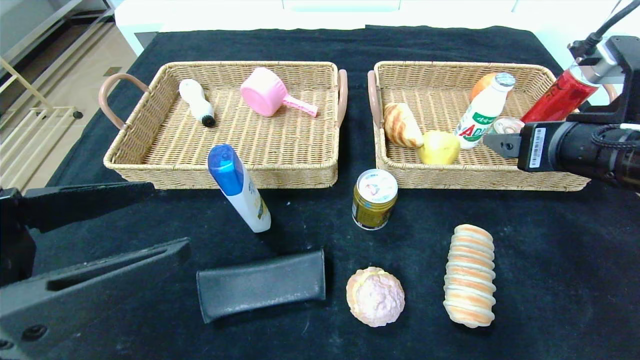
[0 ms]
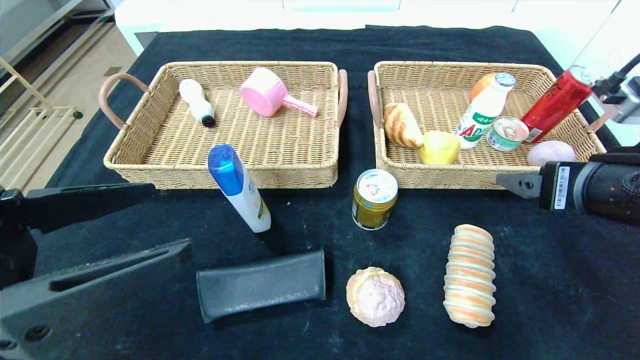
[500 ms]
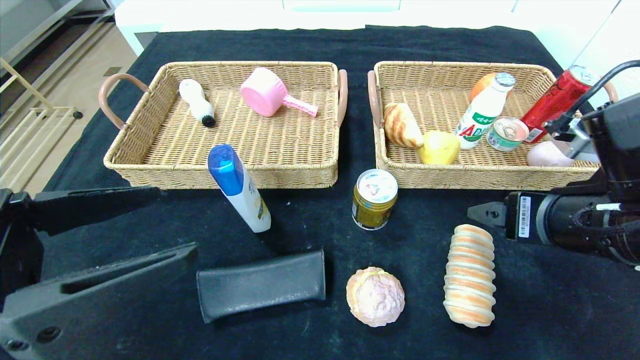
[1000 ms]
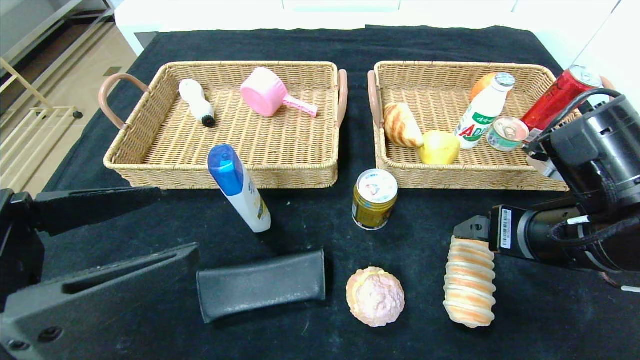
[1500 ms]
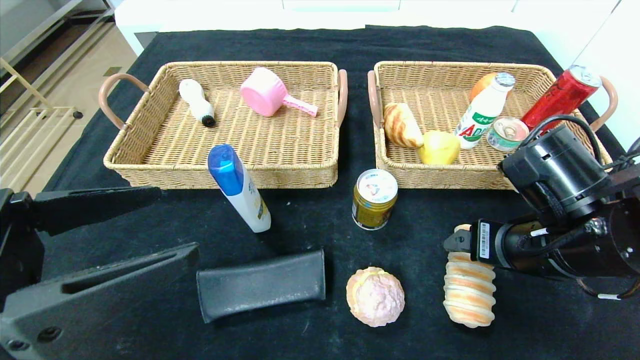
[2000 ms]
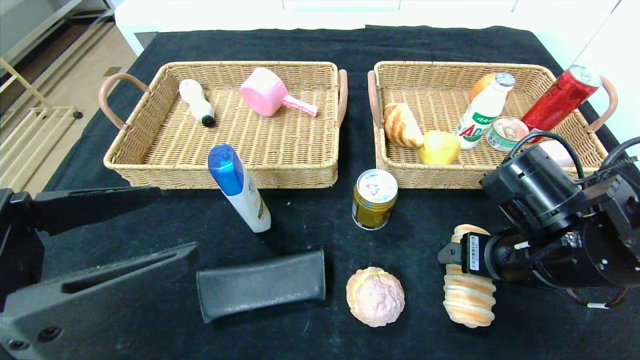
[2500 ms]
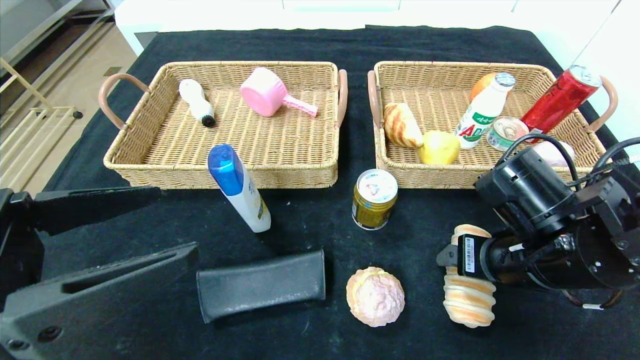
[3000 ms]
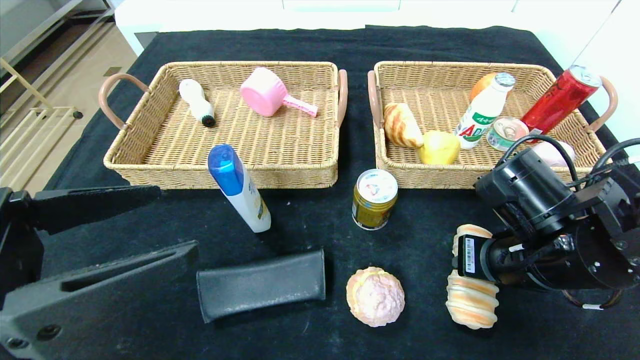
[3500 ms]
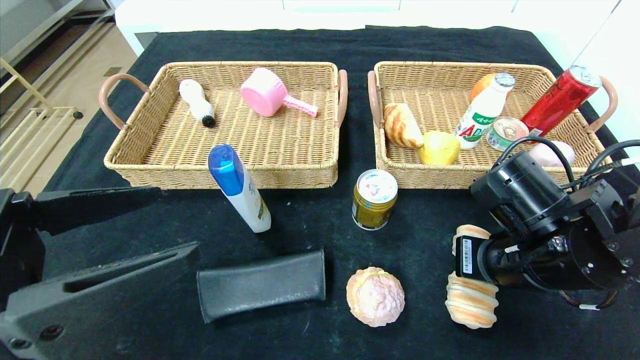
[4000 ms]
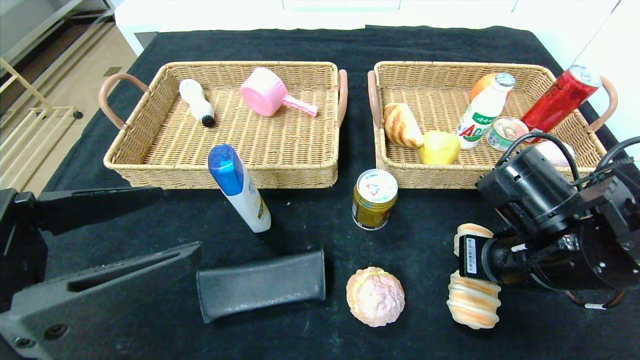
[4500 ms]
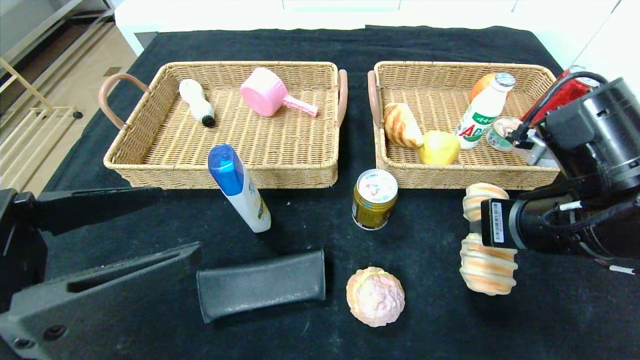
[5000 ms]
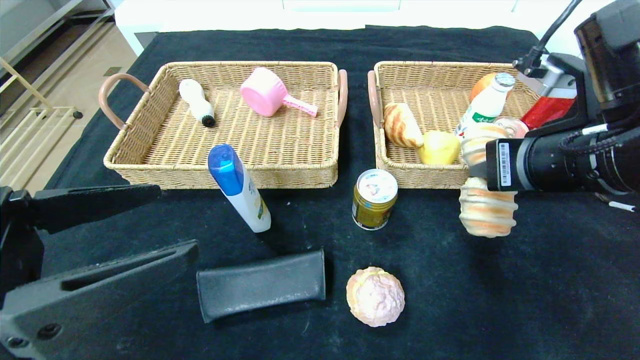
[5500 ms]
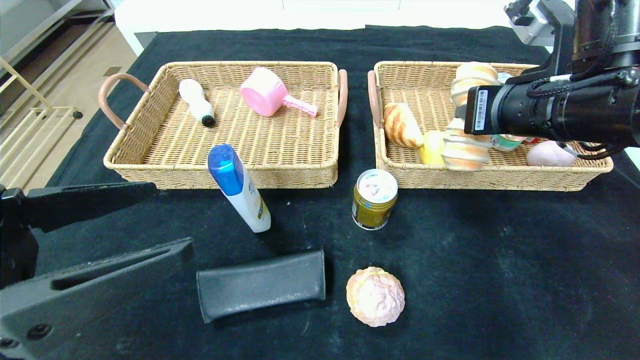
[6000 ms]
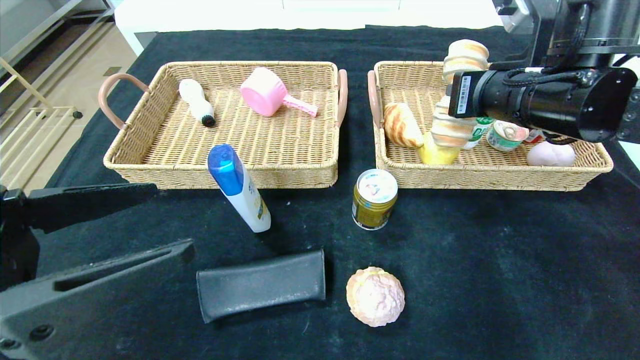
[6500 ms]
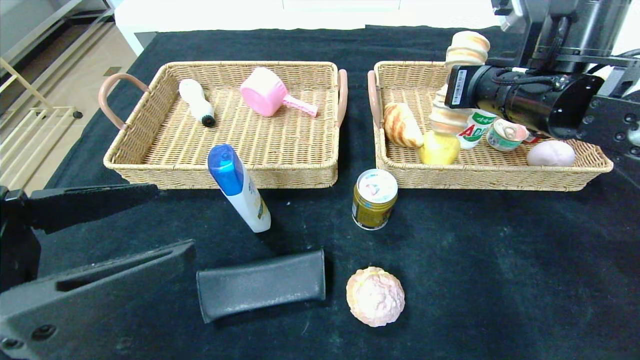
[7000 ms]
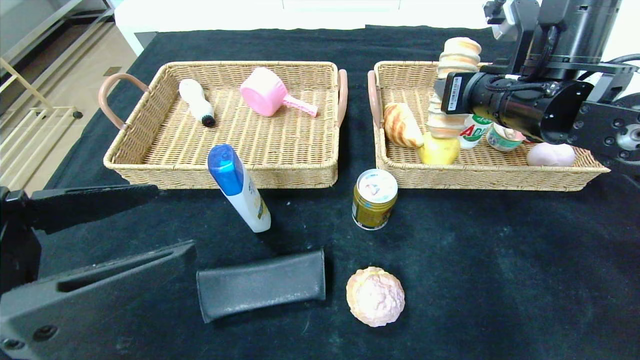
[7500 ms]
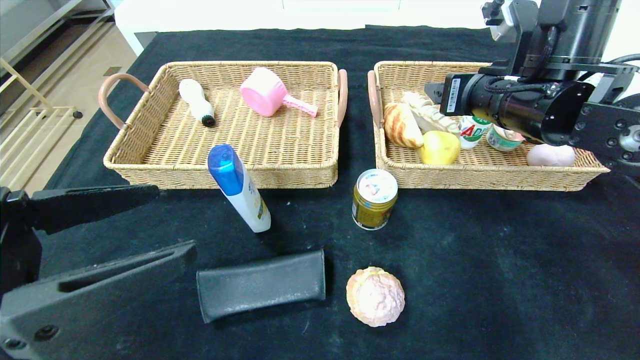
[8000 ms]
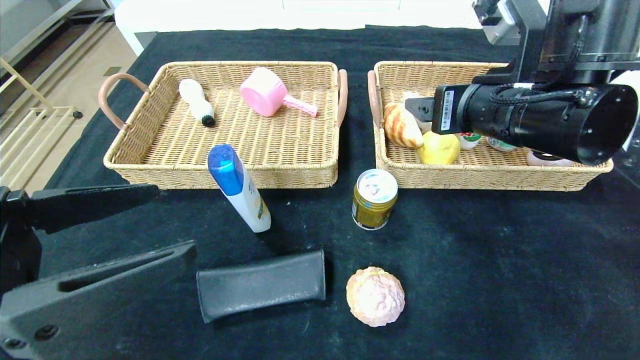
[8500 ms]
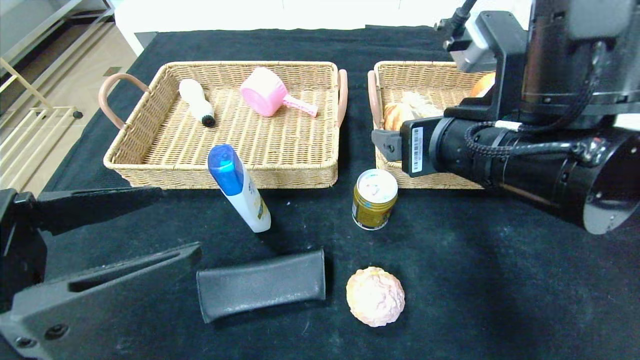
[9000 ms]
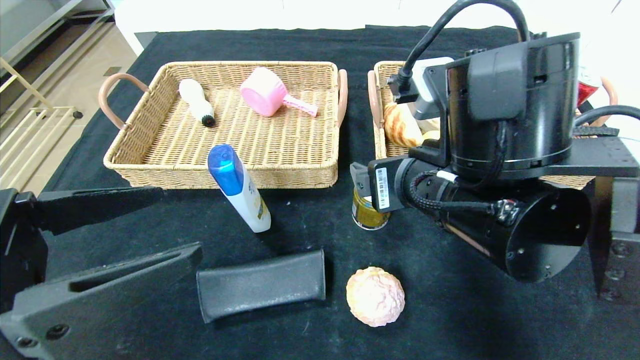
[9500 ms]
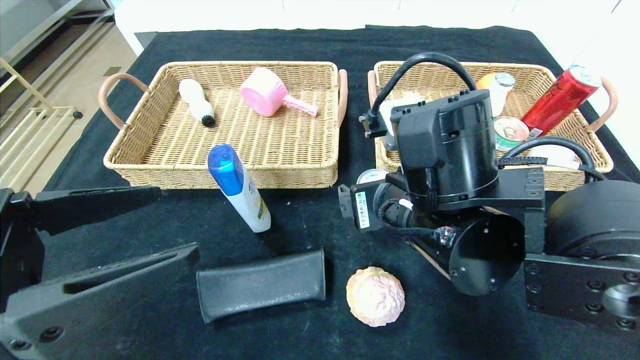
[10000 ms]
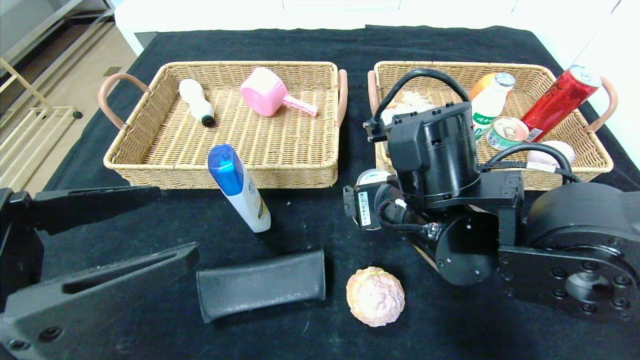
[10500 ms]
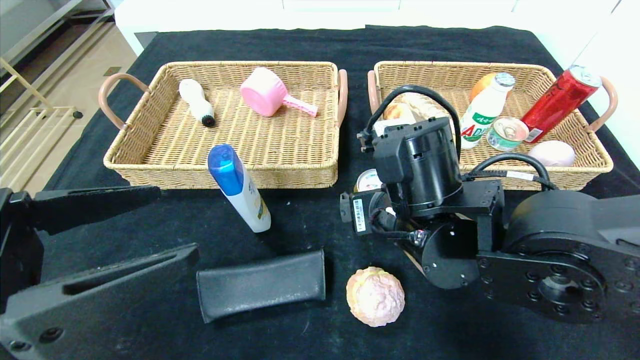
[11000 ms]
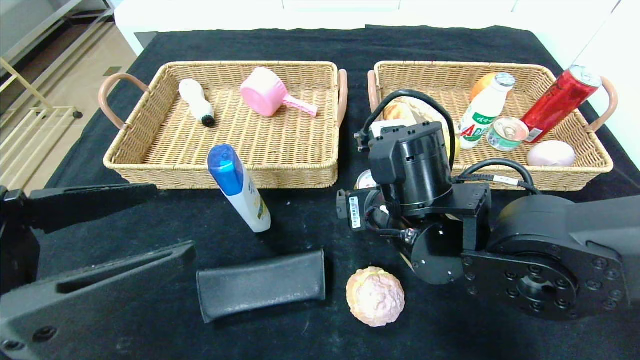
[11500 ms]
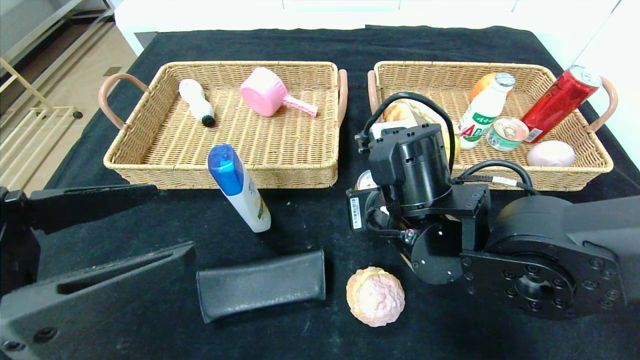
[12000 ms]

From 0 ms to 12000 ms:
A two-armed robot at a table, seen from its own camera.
Step, from 0 ms to 7500 ms: Grasp the long bread and put it in the right basket.
From 0 ms to 2000 ms: The right gripper heads downward, covering roughly 10 cm.
From 2000 ms to 4000 ms: The right gripper closes its fingers.
From 4000 ms to 6000 ms: The right gripper shifts roughly 15 cm upward.
From 6000 ms to 8000 ms: The right gripper shifts approximately 5 cm forward, and opens up.
From 8000 ms to 10000 ms: The right gripper is displaced to the left, backward and downward by some 20 cm.
From 10000 ms to 12000 ms: The right gripper closes.

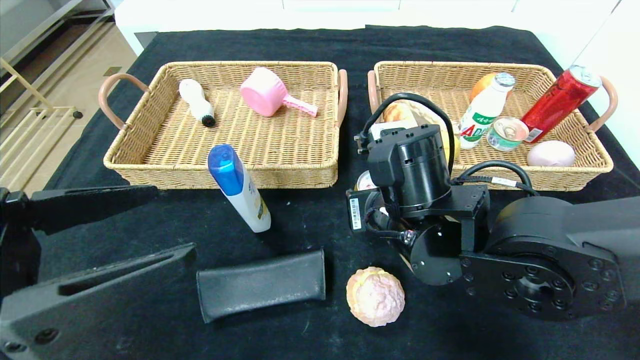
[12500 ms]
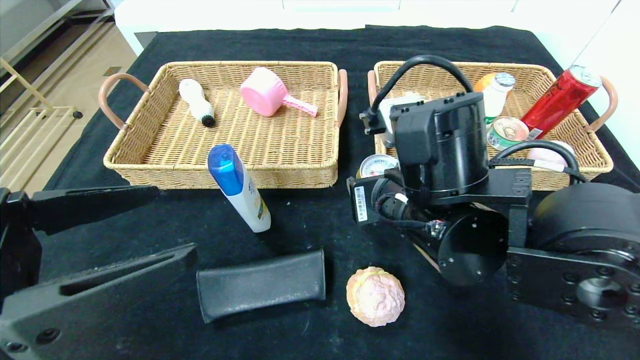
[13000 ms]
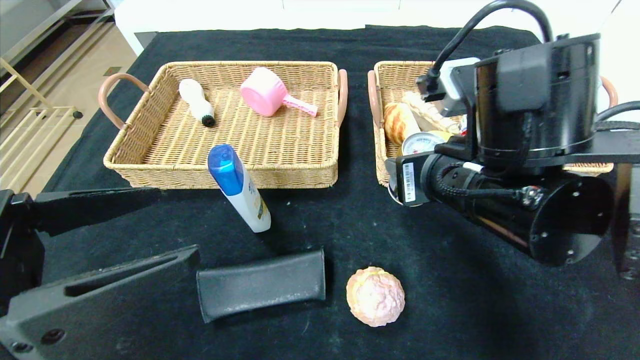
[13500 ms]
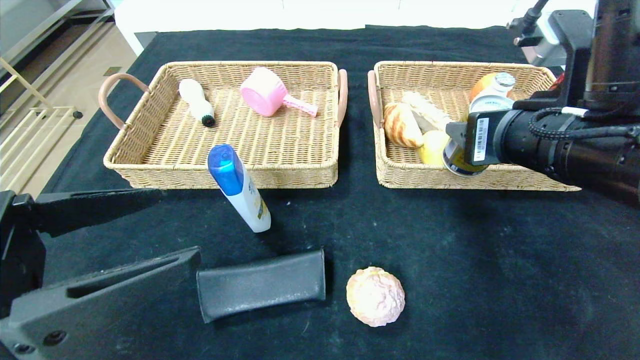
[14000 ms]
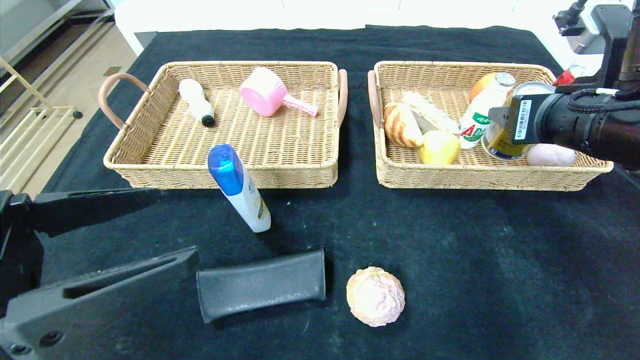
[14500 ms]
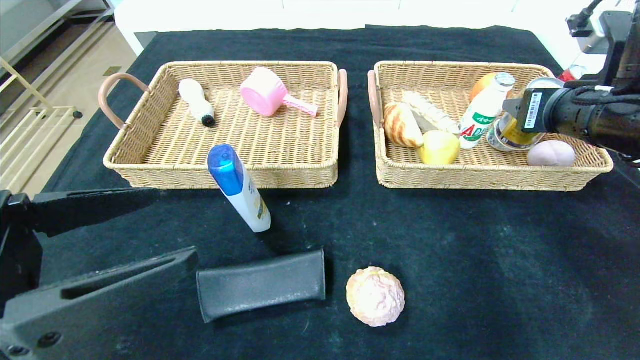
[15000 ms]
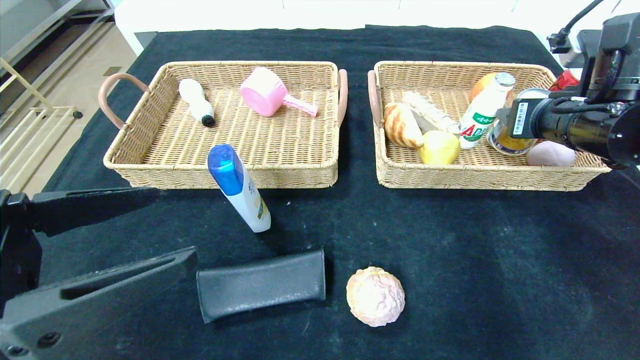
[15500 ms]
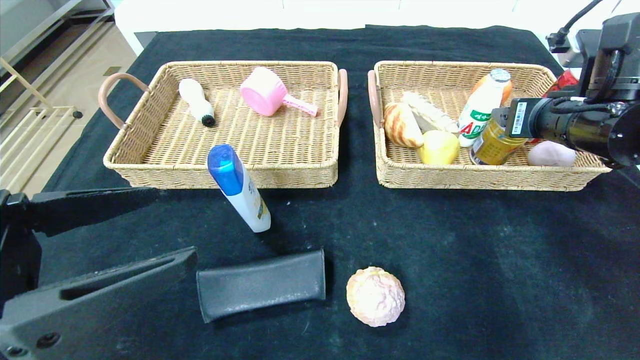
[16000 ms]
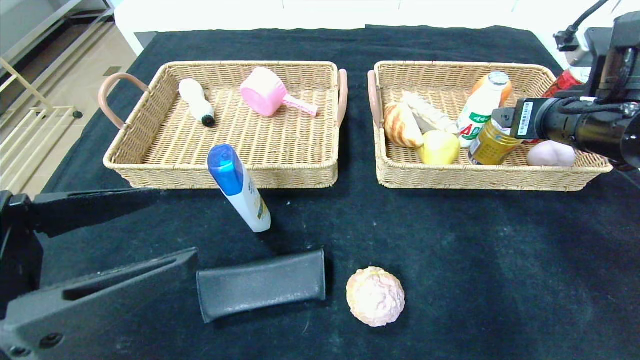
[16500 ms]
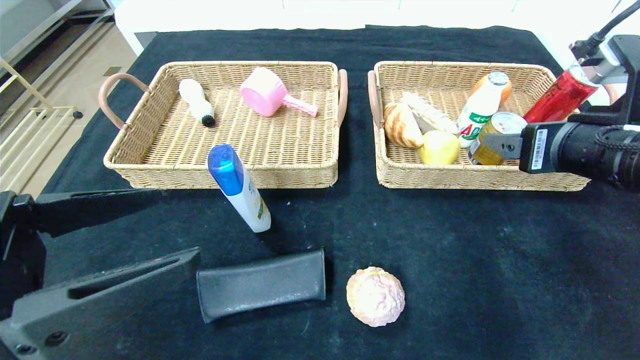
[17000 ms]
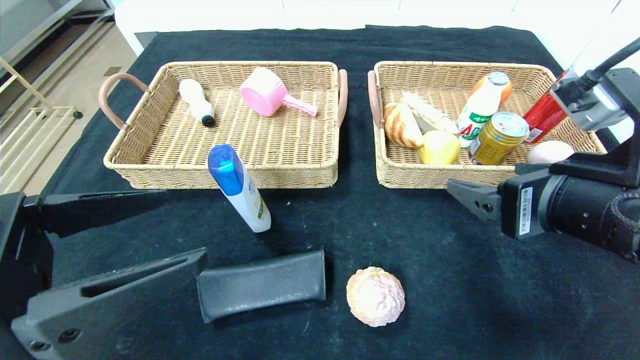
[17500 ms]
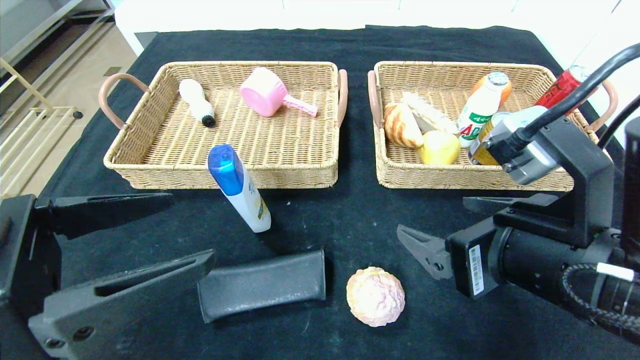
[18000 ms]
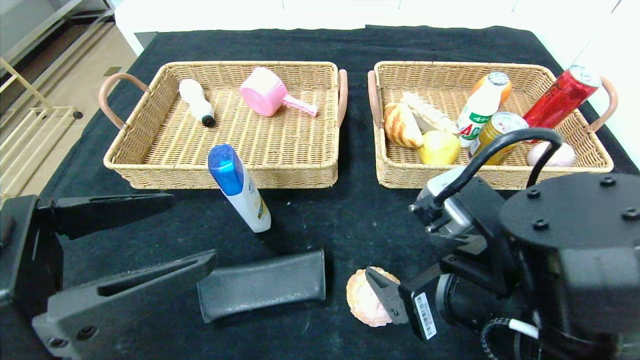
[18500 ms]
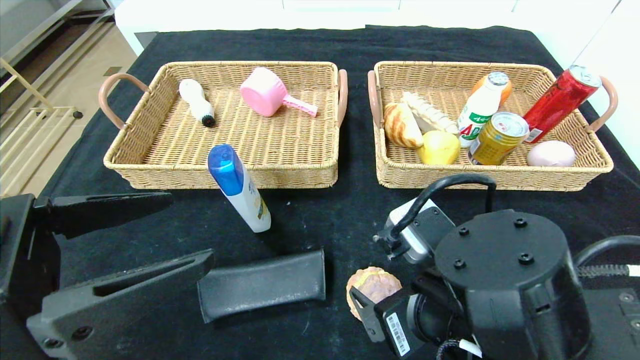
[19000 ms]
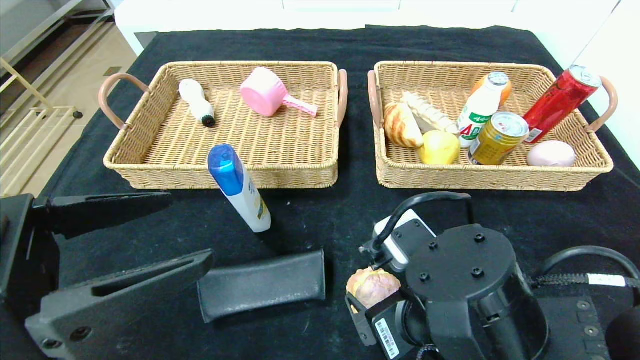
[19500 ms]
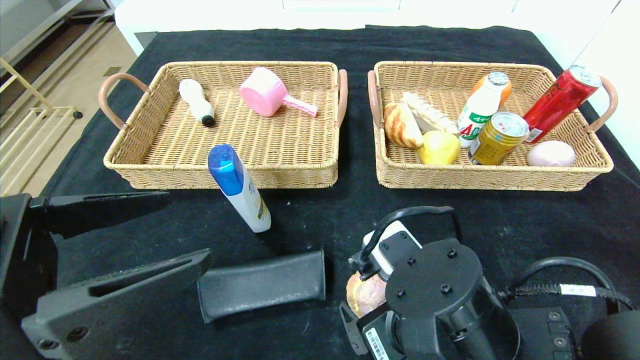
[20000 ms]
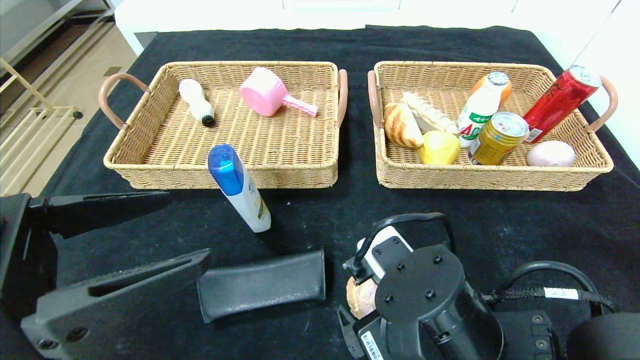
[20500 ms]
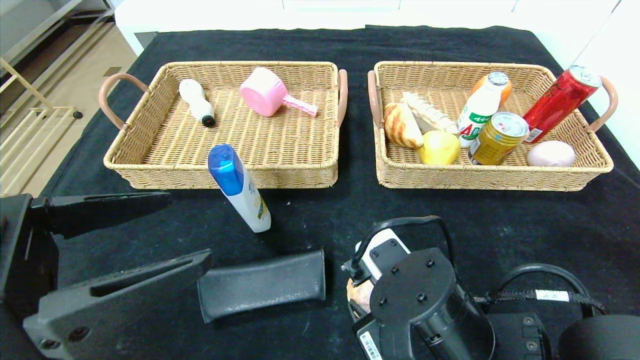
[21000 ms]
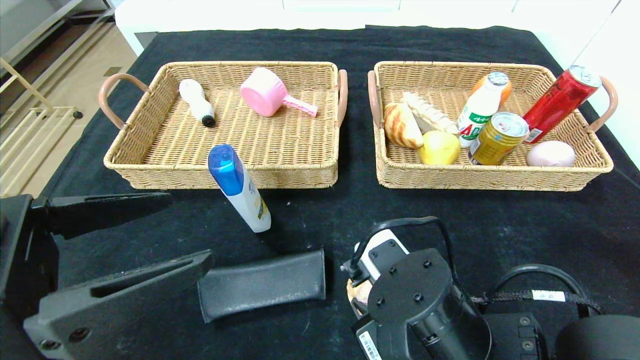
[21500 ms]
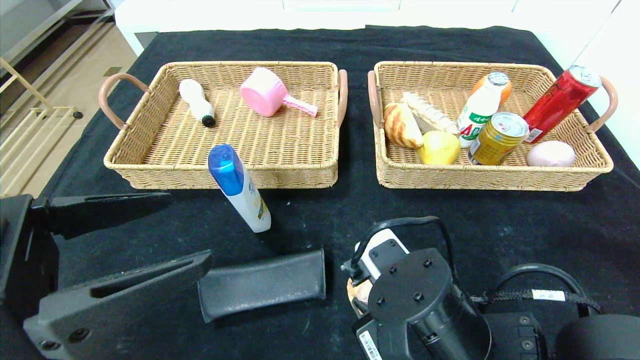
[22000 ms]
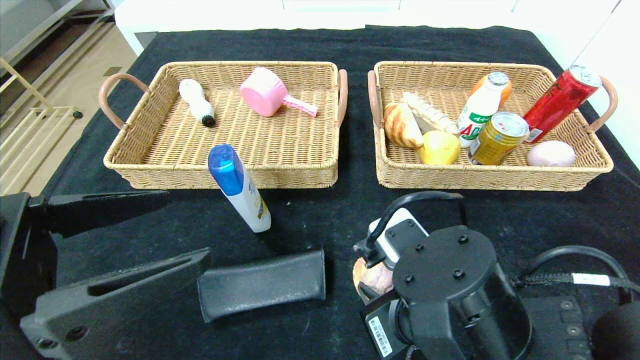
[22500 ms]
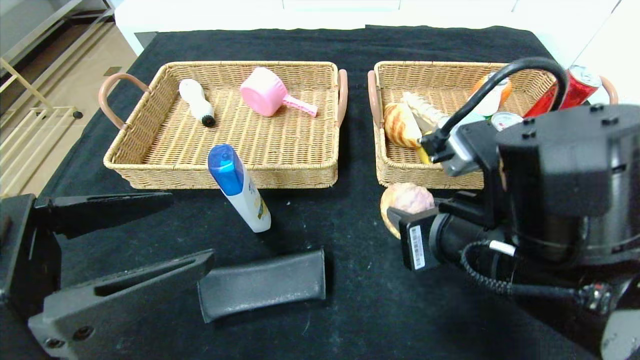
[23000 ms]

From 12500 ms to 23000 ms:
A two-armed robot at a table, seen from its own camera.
Step, from 12500 ms to 16000 ms: Grasp the Red Bull and put it in the right basket.
From 12500 ms to 14500 ms: The right gripper travels to the right and upward by about 20 cm.
From 14500 ms to 16500 ms: The right gripper travels forward by roughly 5 cm.
From 16500 ms to 19000 ms: The right gripper moves to the left, backward and downward, roughly 25 cm.
From 19000 ms to 21000 ms: The right gripper closes.
From 21000 ms to 23000 ms: The right gripper is displaced upward by some 10 cm.
